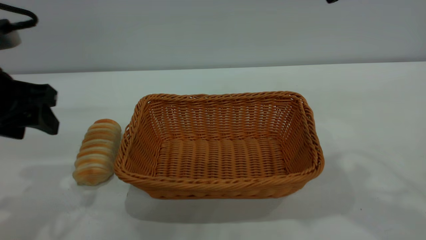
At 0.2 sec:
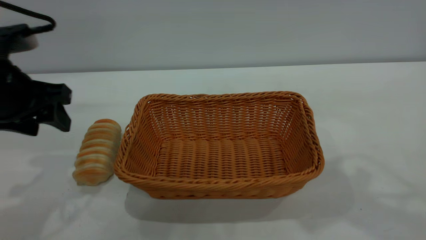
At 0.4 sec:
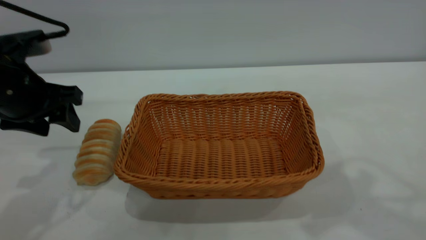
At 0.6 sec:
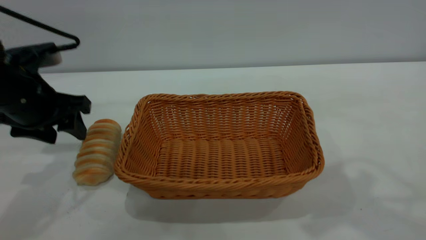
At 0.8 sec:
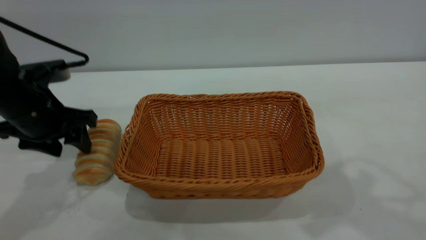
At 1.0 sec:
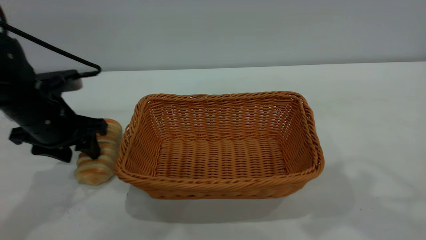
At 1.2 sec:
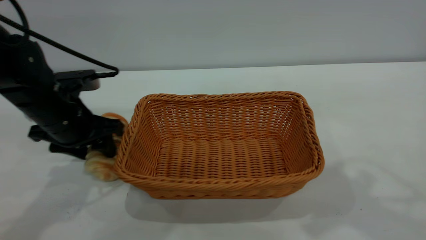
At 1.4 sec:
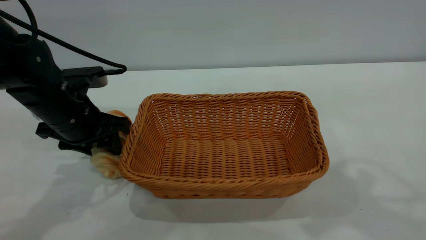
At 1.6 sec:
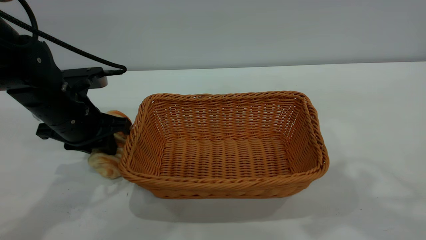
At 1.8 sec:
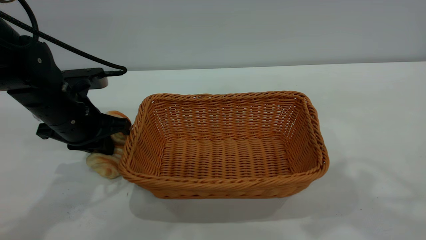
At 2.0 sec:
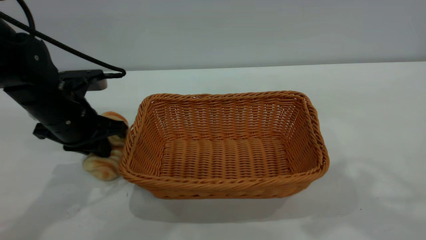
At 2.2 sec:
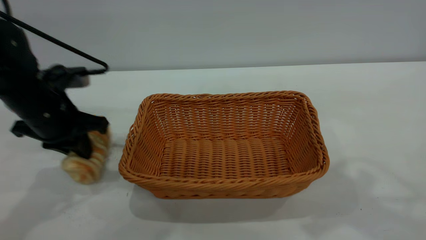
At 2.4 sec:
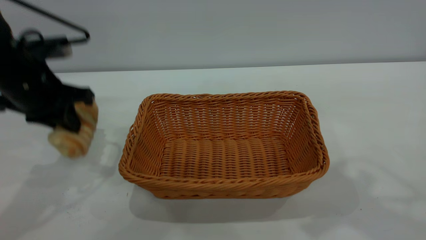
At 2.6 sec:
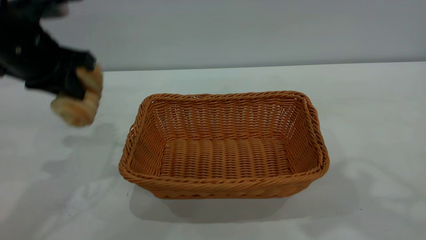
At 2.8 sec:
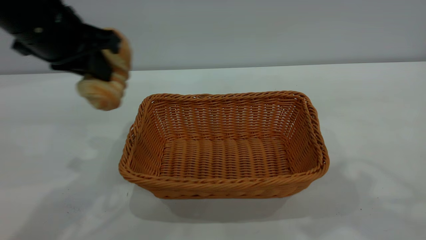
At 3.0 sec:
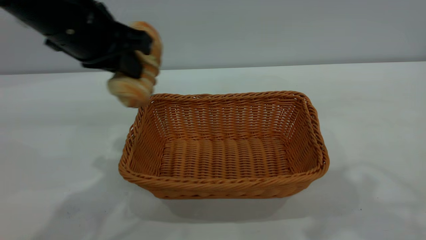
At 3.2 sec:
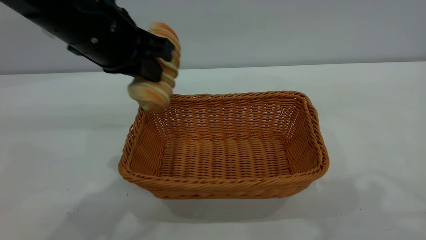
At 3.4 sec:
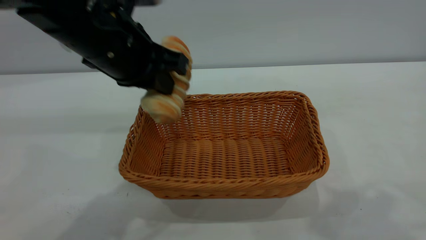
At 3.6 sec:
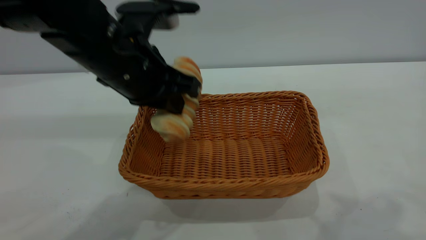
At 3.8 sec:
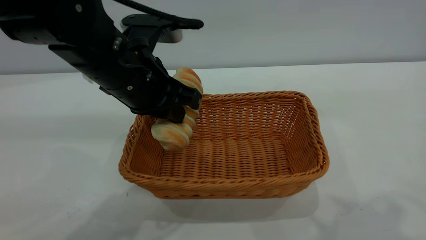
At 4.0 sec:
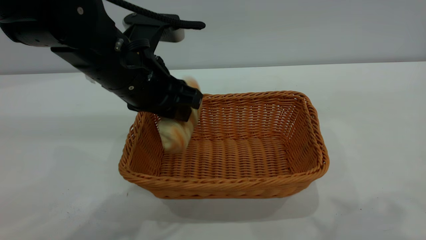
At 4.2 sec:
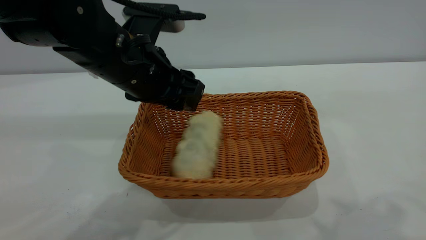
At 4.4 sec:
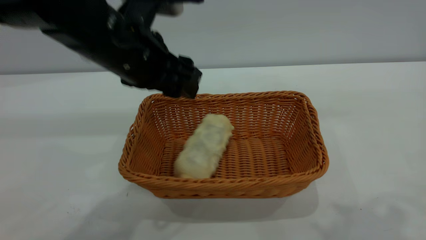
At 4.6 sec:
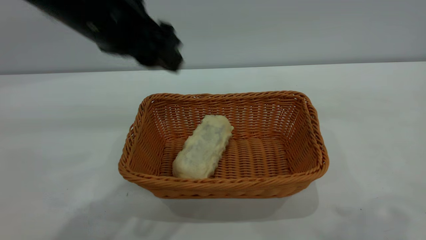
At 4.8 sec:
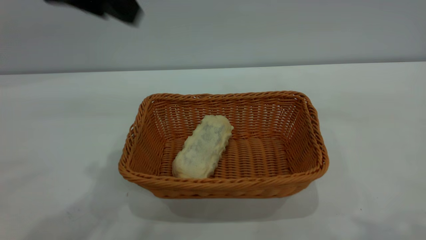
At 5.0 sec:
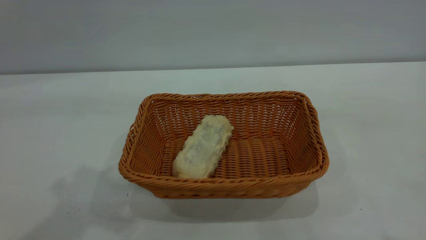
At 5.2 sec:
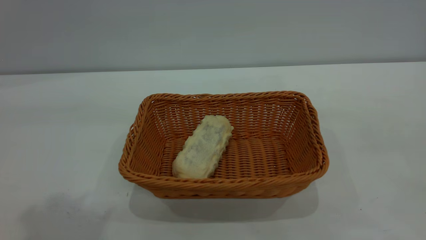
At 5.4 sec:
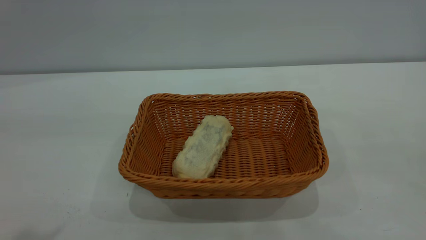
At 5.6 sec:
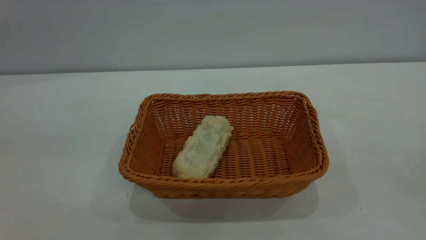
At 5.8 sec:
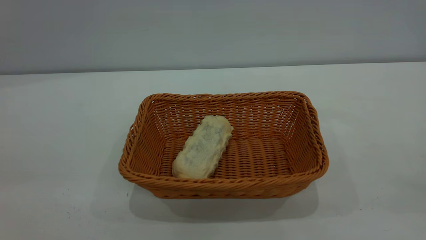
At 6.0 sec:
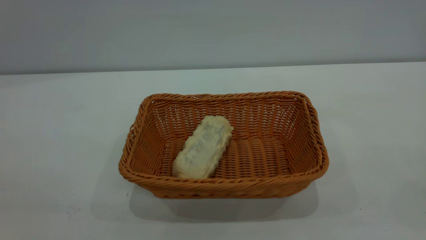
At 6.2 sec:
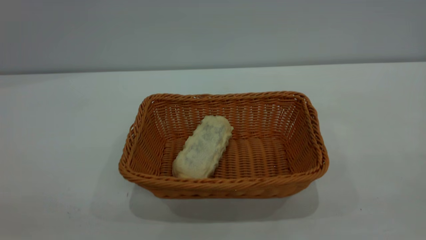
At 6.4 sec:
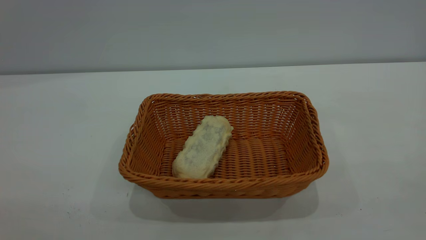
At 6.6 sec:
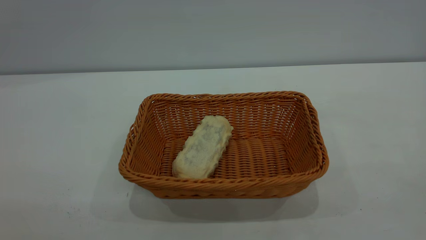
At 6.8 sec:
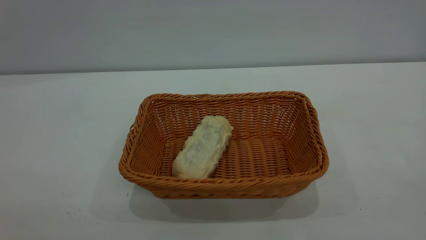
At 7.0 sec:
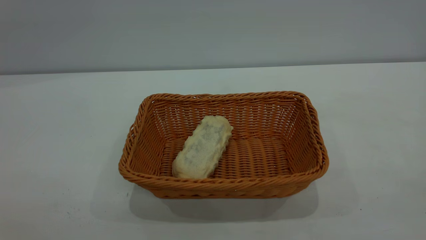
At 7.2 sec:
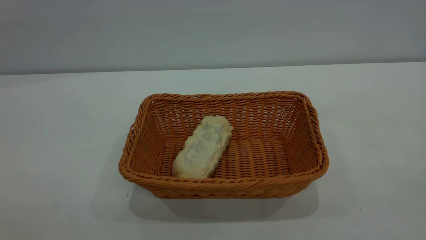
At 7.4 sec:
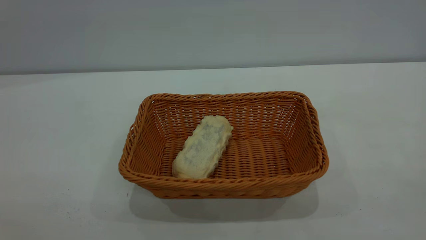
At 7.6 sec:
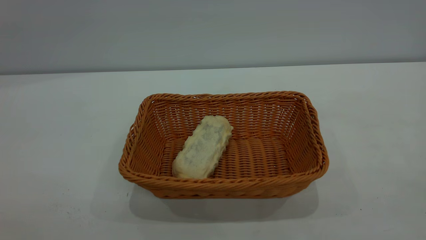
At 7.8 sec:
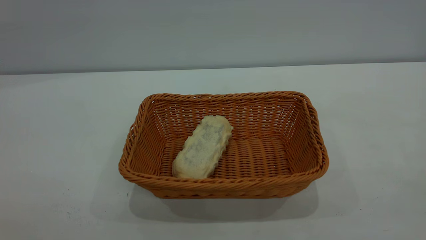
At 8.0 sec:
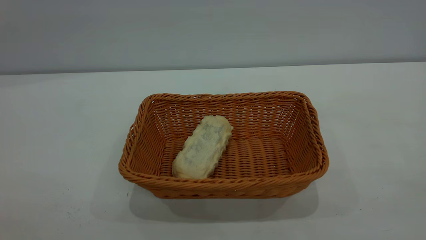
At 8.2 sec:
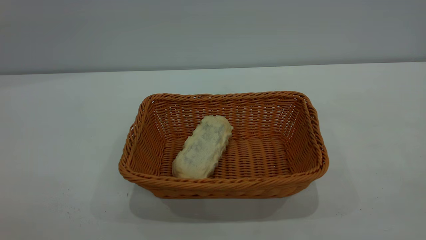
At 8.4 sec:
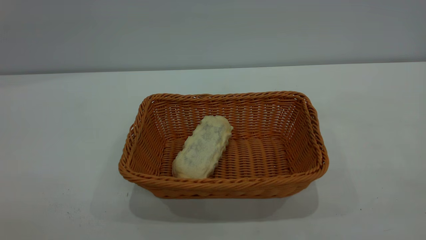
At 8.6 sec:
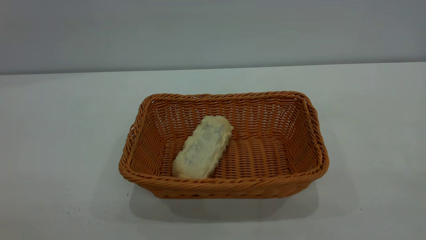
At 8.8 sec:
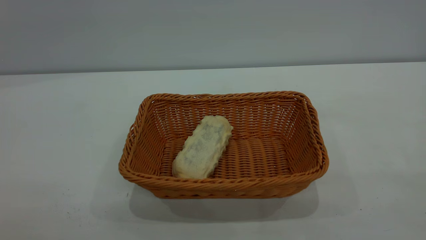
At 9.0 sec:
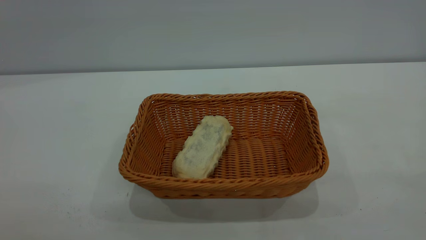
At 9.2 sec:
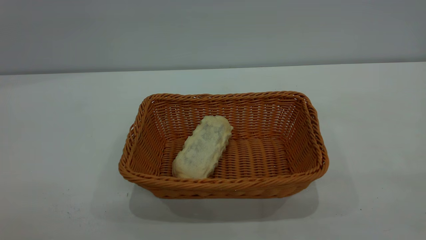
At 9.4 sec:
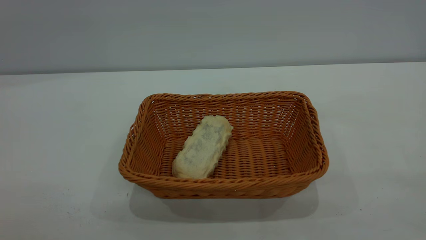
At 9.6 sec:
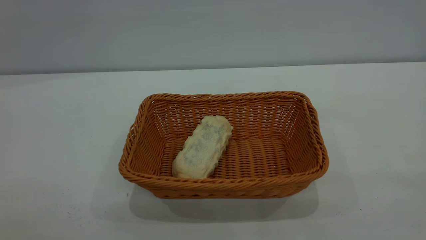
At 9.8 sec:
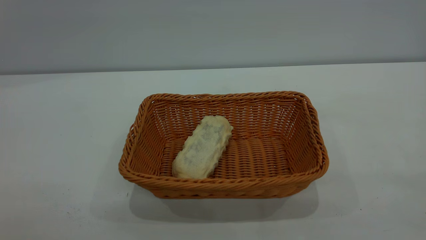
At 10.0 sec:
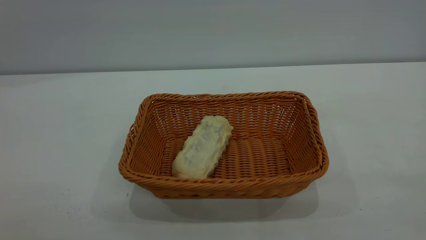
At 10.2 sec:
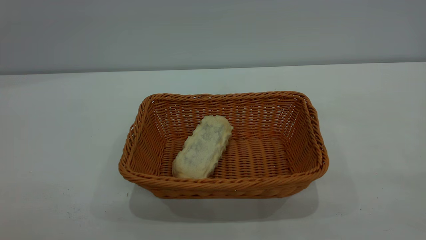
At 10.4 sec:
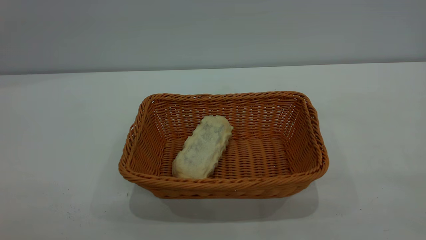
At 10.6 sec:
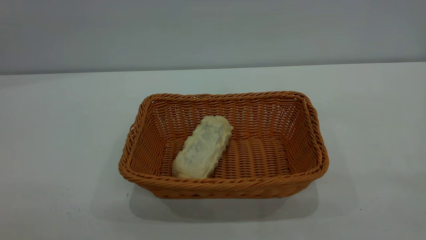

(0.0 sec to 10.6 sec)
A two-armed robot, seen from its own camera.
Task of the whole recording: One hand grasps the yellow basket and places it in the middle of the table, while the other hand picks up the long bread and puts it into the yellow basket.
Step, 2.6 sec - 4.4 sec: place the bread into the basket.
0.0 sec - 1.6 sec: The left gripper travels downward and forward by about 10 cm, and closes its fingers.
1.6 sec - 3.0 sec: The left gripper travels upward and to the right by roughly 15 cm.
3.0 sec - 4.6 sec: The right gripper moves backward, some 5 cm. Meanwhile the left gripper opens.
4.6 sec - 6.0 sec: The right gripper goes some 20 cm backward, downward and to the right; the left gripper shifts approximately 30 cm backward and to the left.
9.0 sec - 10.6 sec: Neither gripper changes place.
